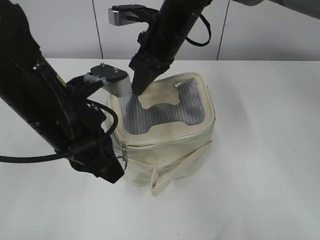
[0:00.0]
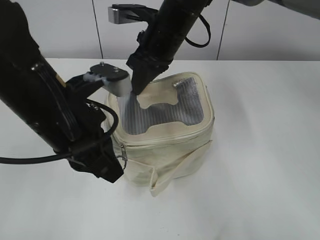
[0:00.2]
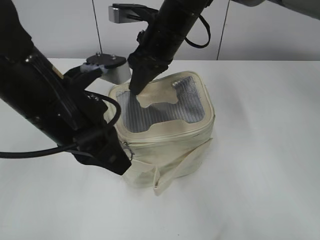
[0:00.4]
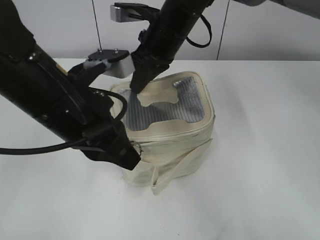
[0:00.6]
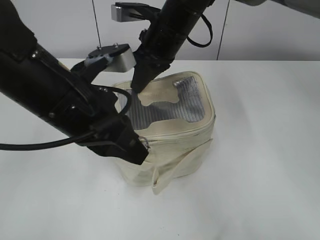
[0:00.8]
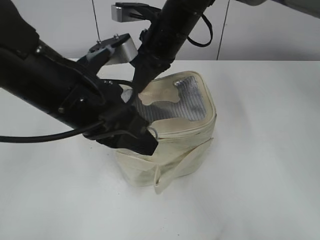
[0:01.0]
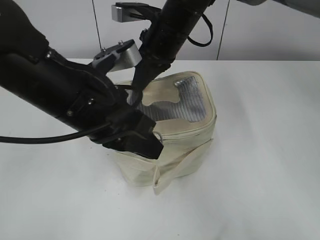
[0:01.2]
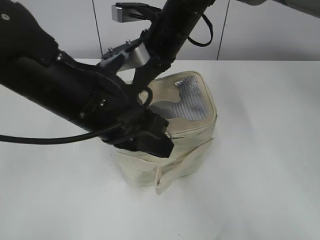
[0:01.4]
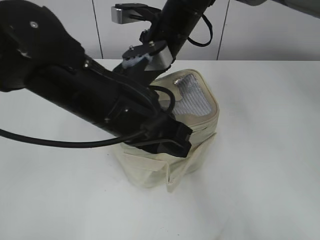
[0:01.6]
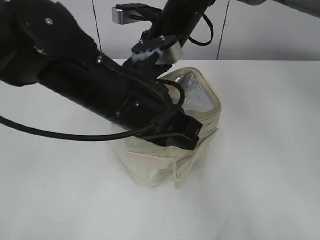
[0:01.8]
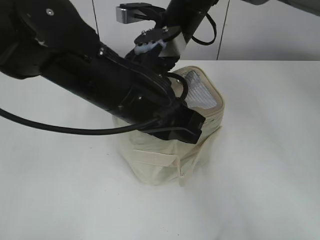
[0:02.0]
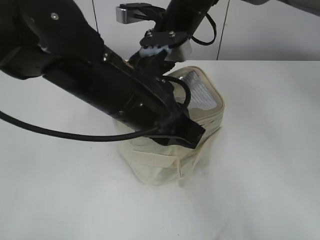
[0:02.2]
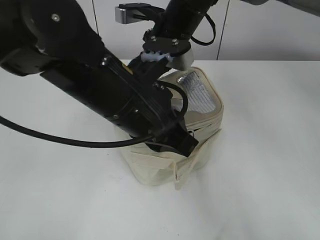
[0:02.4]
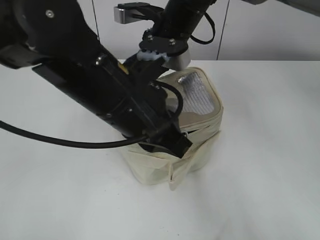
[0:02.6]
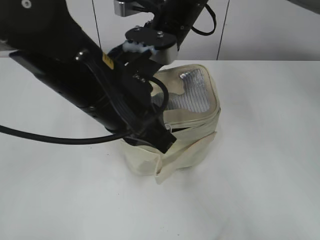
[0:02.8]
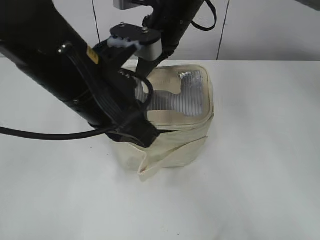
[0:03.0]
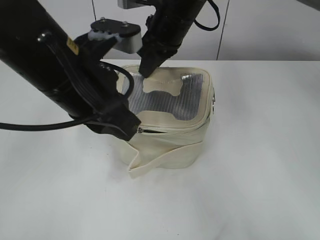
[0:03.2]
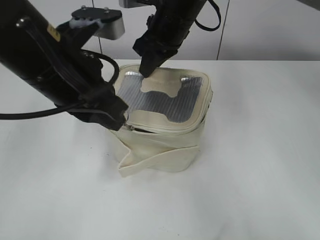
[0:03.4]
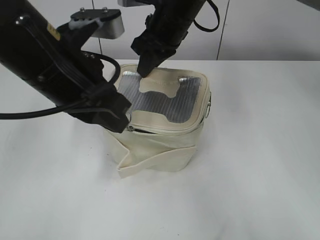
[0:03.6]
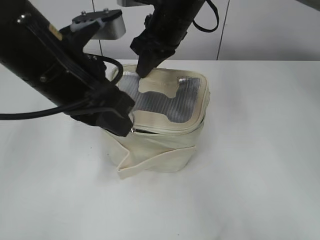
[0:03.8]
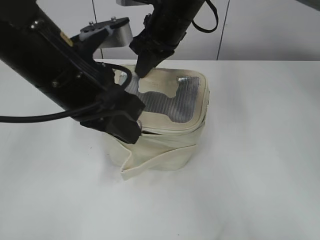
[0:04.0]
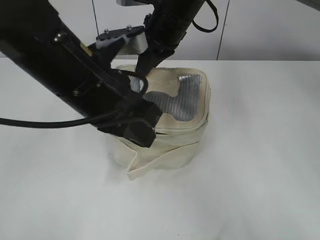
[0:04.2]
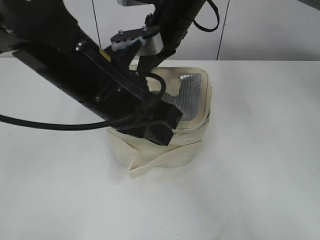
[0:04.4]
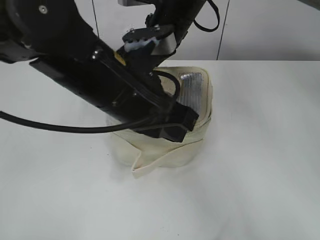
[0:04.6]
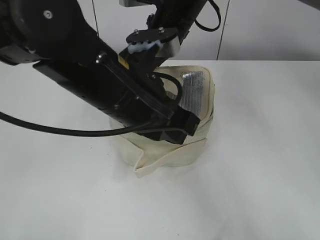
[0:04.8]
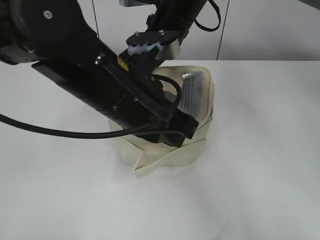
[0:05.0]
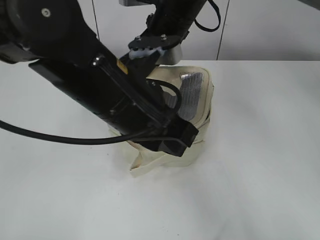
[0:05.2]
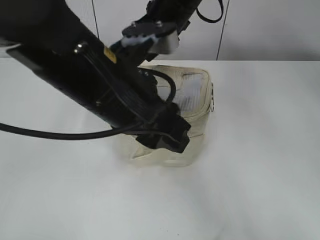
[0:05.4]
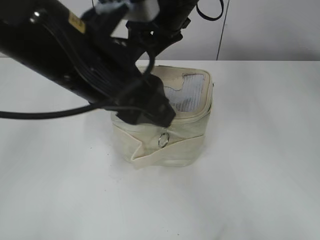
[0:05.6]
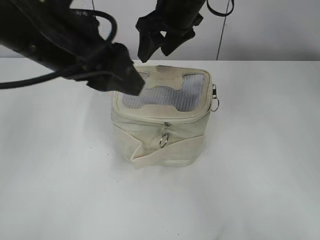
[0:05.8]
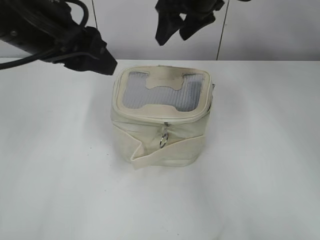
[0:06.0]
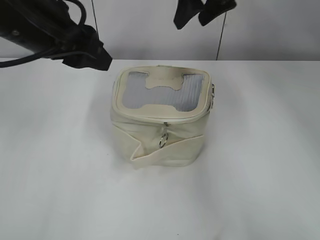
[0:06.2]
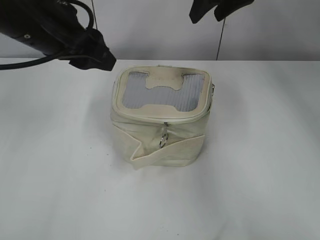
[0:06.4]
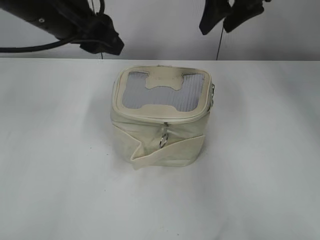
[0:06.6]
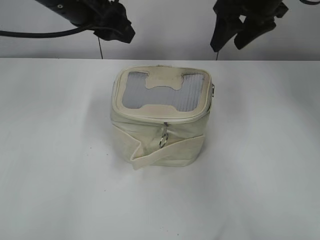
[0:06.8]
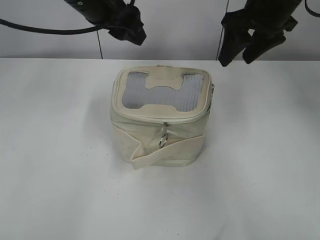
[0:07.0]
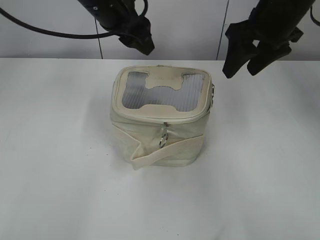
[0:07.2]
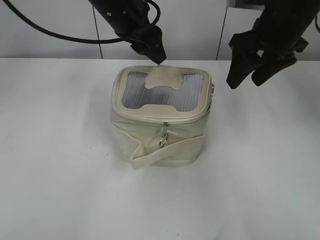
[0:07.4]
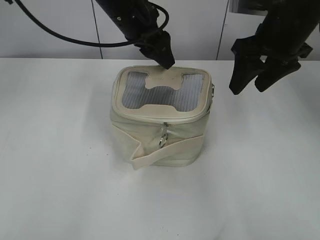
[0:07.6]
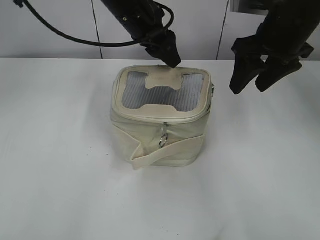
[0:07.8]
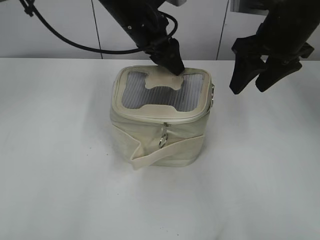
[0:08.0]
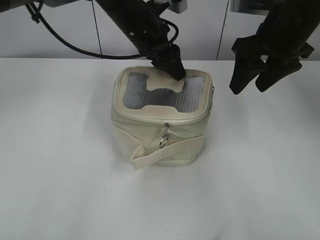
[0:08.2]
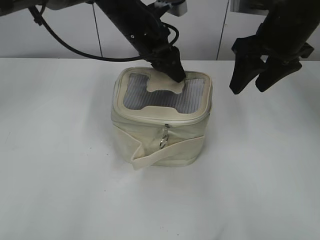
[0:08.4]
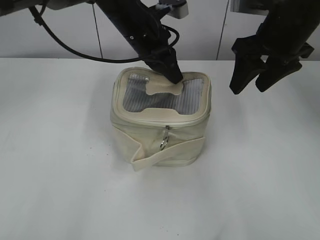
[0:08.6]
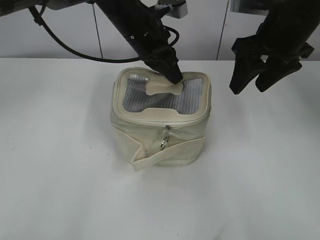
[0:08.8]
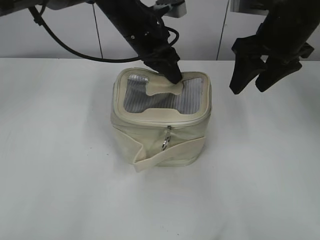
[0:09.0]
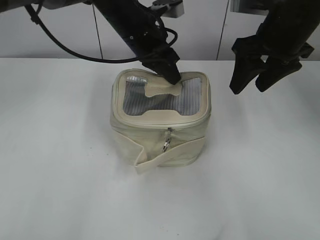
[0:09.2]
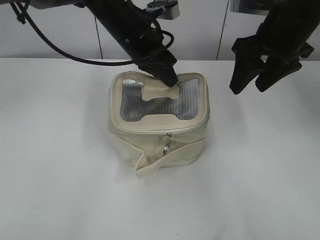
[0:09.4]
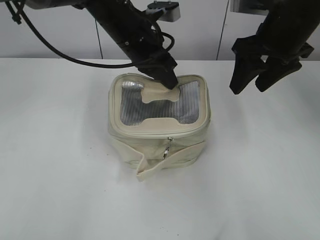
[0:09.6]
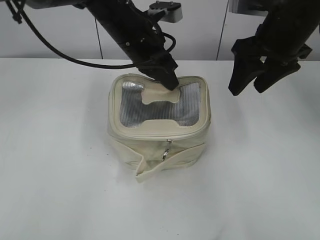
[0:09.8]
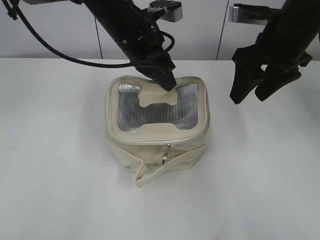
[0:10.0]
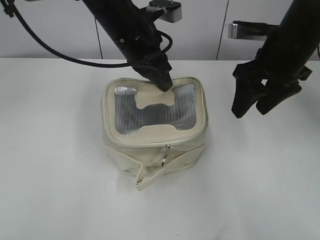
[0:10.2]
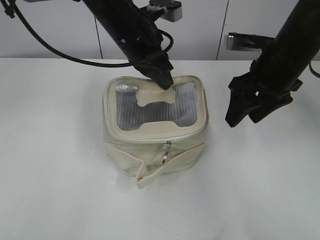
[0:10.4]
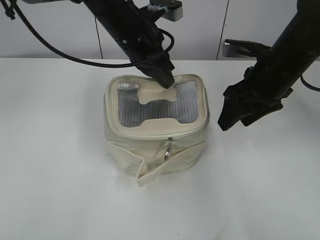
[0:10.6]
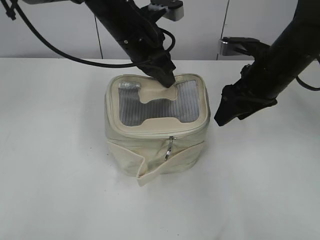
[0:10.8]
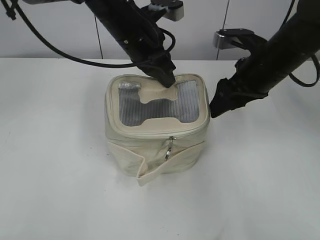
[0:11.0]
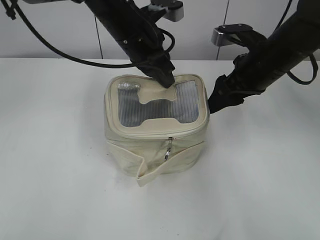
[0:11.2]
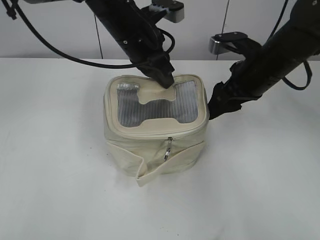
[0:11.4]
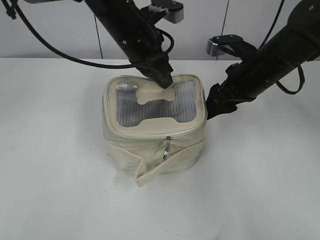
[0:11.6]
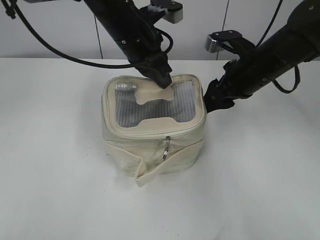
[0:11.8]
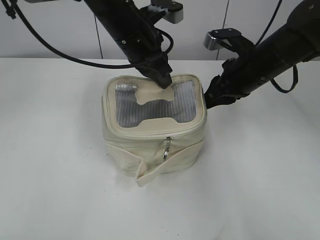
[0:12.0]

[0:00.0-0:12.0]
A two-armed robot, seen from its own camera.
Step, 0:00.0 to 0:05.4: Zip up the bag with your left hand.
0:00.0 to 0:01.6: The left gripper is displaced to the right by about 5 cm.
0:01.6 to 0:03.0: The grippers stay close to where they were, moving slightly.
0:03.0 to 0:04.4: There are only small adjustments of the grippers.
0:04.4 to 0:06.0: The left gripper travels to the left and upward by approximately 10 cm, and opens. Meanwhile the right gripper ends up some 5 cm from where it was, and opens its fingers.
0:06.0 to 0:07.6: The right gripper moves to the right and backward, approximately 15 cm. Meanwhile the left gripper moves forward and to the right, some 20 cm.
0:07.6 to 0:09.0: The left gripper closes its fingers.
0:09.0 to 0:10.4: The right gripper changes place by approximately 5 cm.
0:10.4 to 0:12.0: The right gripper closes up.

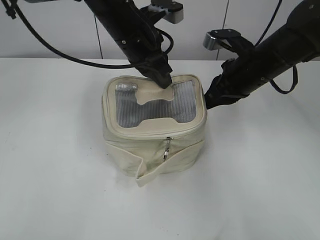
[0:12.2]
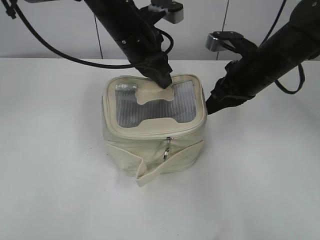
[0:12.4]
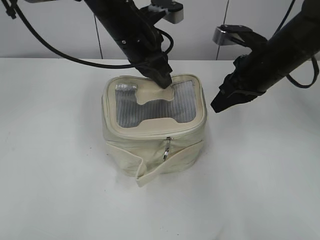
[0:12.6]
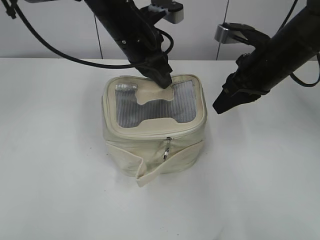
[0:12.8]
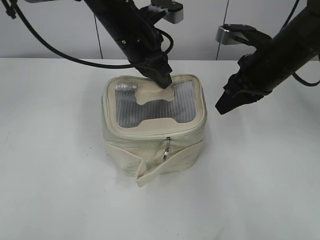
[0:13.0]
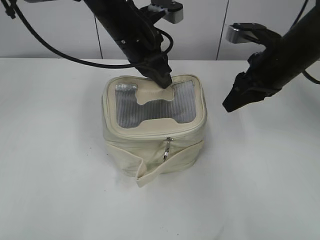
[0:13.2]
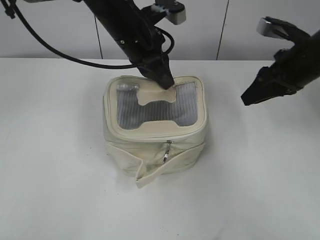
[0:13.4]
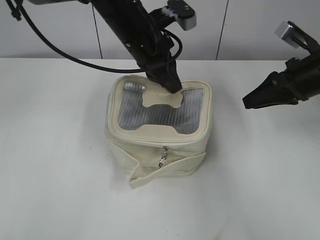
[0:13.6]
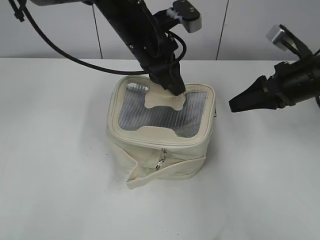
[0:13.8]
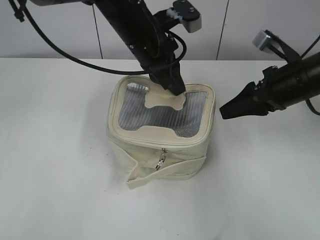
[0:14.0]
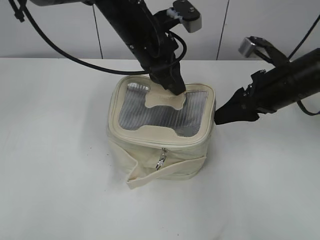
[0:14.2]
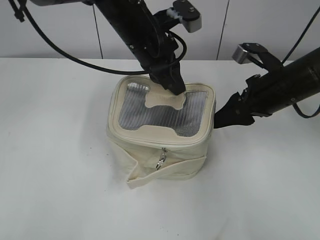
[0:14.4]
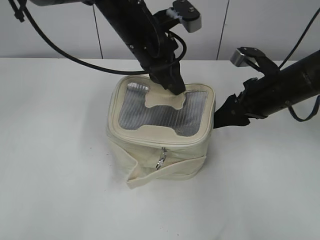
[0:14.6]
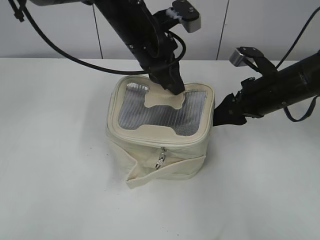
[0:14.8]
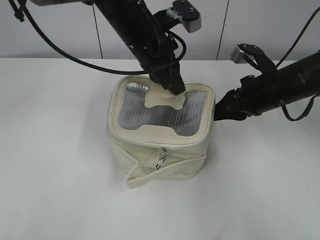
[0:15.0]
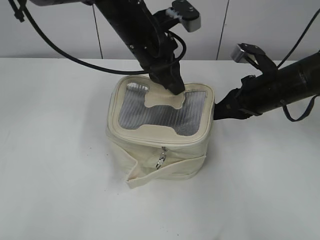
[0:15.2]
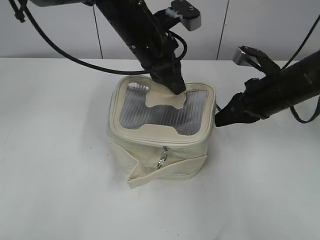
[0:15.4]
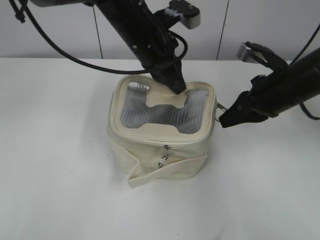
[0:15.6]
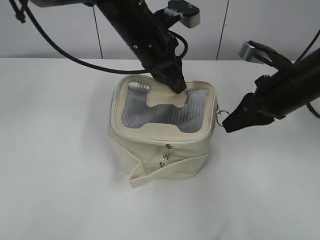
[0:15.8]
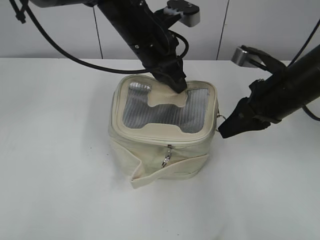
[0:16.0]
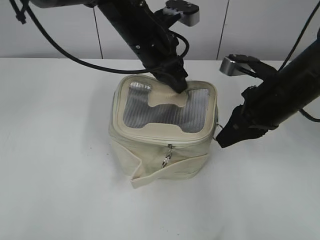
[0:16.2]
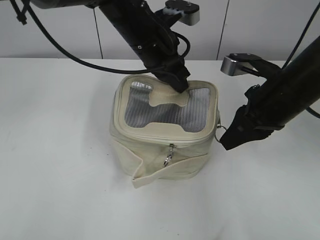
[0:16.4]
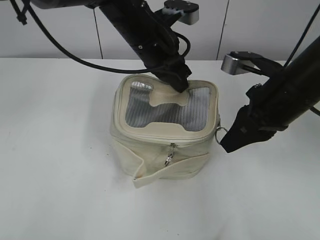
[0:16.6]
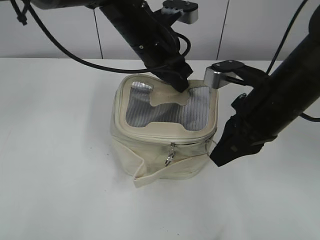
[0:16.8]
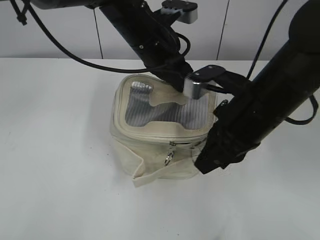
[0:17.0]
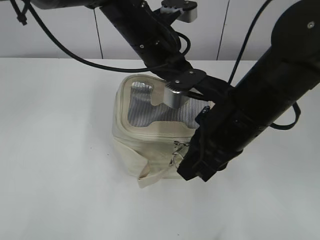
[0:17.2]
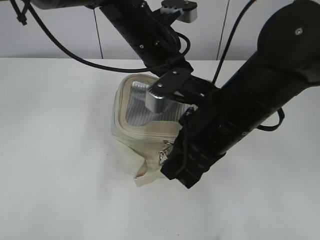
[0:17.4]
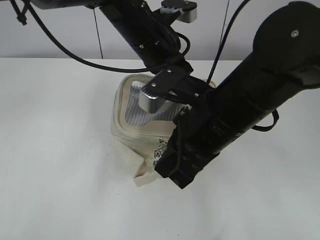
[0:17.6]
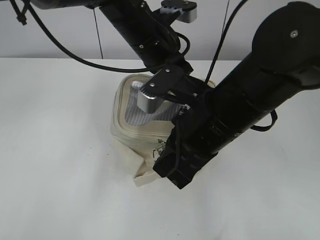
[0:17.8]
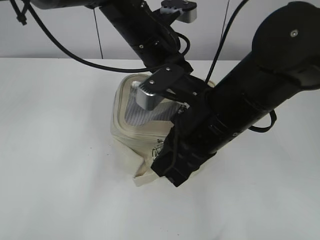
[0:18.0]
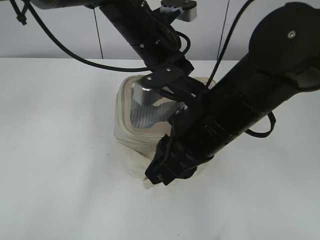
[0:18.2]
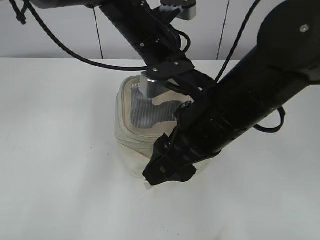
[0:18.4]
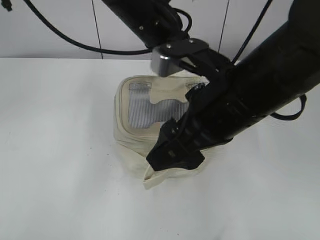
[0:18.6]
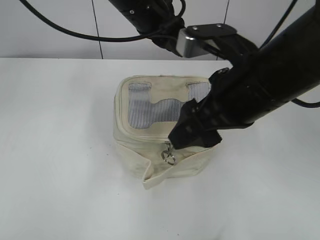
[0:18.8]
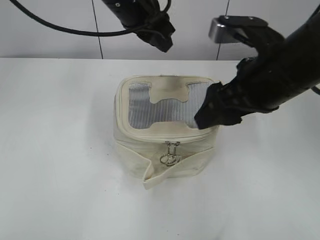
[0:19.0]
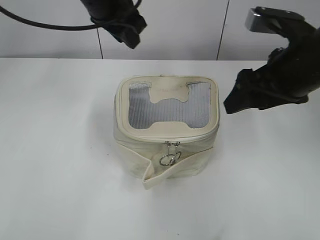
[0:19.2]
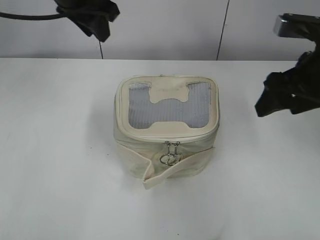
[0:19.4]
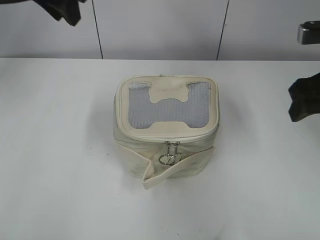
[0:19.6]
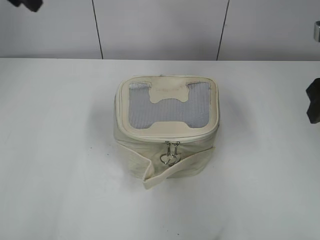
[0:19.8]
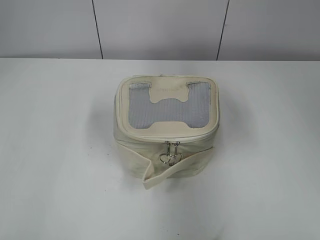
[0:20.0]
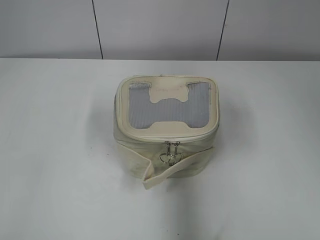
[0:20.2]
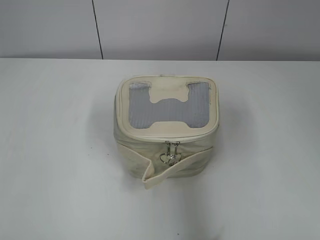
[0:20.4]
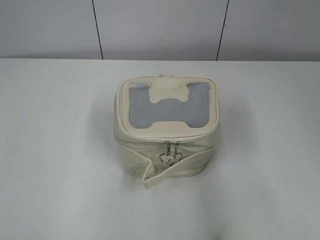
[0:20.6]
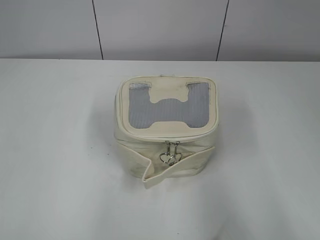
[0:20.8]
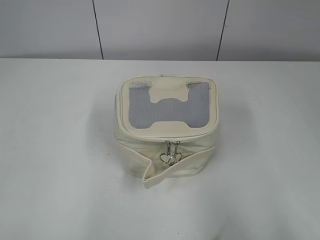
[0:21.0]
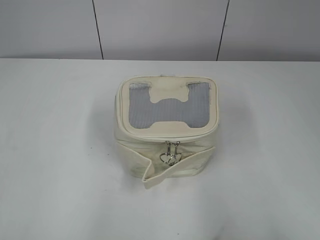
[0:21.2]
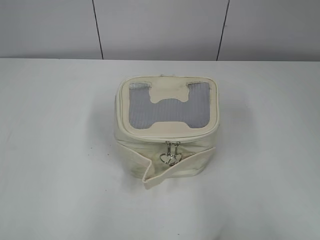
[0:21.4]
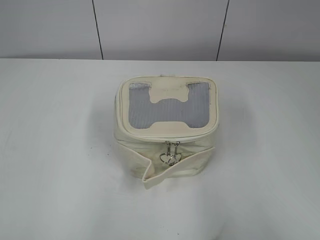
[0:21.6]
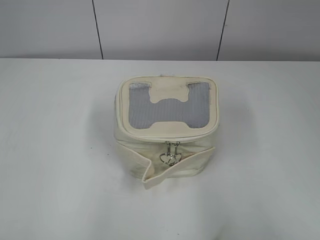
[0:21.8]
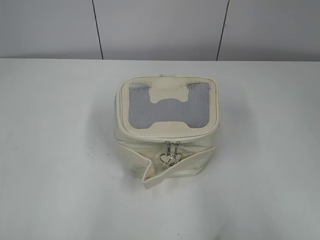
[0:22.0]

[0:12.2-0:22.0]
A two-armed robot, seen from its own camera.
Step, 0:12.2 to 0:18.4: Zip up the bag with your right hand.
Step, 0:18.6 to 0:18.8: Hold the bag with your left hand.
0:12.2 to 0:13.6: The right gripper is displaced to the right by about 10 cm, and opens.
0:13.6 to 0:15.0: The right gripper heads to the left, covering some 5 cm.
0:15.0 to 0:16.4: The right gripper travels backward by approximately 5 cm, and closes its fingers.
0:16.4 to 0:17.8: The right gripper is displaced to the left and backward by approximately 15 cm.
0:17.8 to 0:19.2: The right gripper is displaced to the right and forward by some 10 cm, and opens up. The left gripper heads upward and to the left, covering about 10 cm, and opens.
0:19.2 to 0:20.6: The left gripper shifts about 40 cm backward and to the left; the right gripper heads backward and to the right, covering some 20 cm.
0:20.6 to 0:22.0: The right gripper moves backward, some 10 cm. The left gripper goes approximately 5 cm backward.
